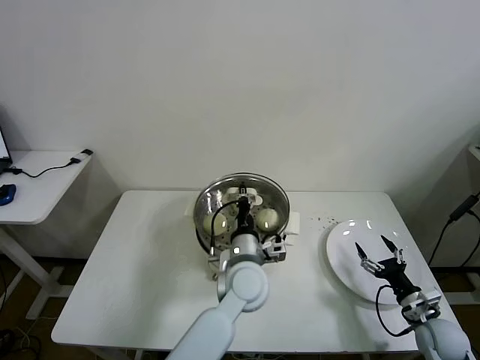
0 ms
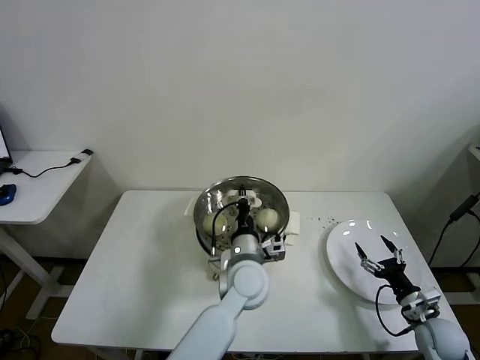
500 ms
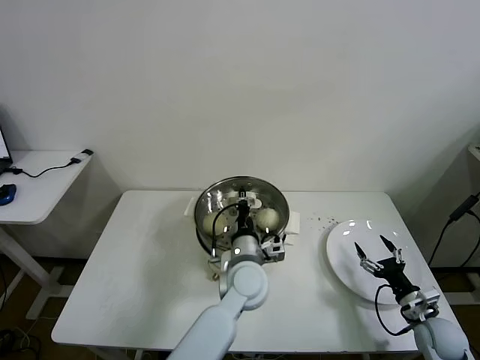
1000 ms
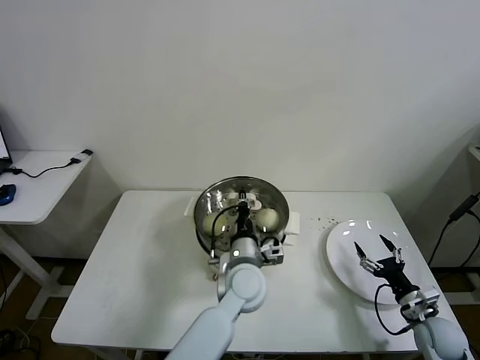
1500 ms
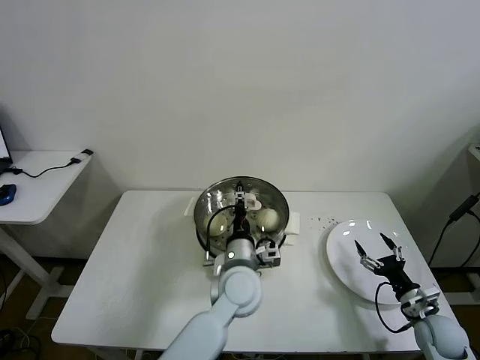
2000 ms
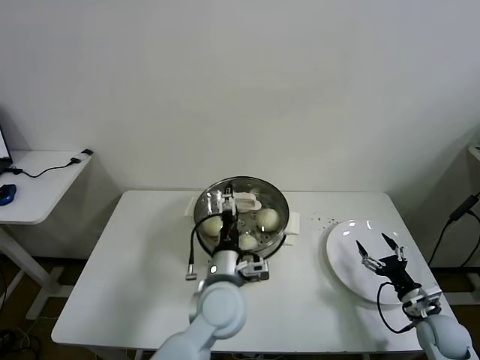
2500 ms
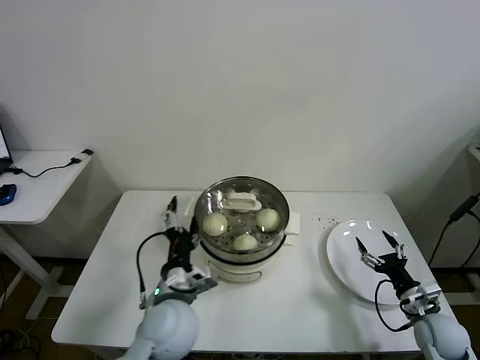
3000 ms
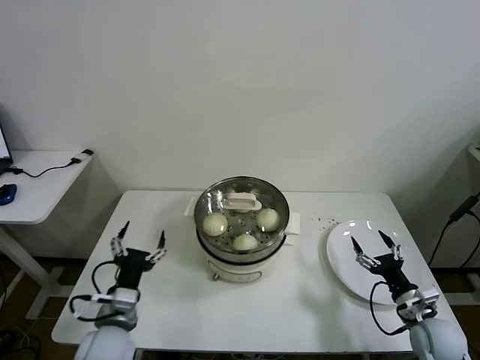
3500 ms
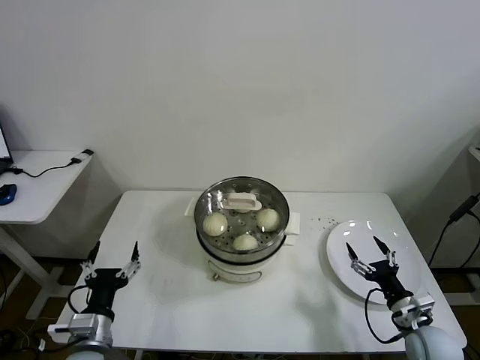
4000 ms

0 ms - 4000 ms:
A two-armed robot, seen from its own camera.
Task of the whole recording: take steamed baozi put them in steamer then cover it.
Step, 0 ms - 2000 ms: Place the pot lid on the steamer with left gripper.
0 ms - 2000 ms: The left gripper opens its fingers.
2000 ms - 4000 ms: The right gripper changes place by approximately 5 cm. The left gripper heads to the left and backward, covering roughly 30 cm, and opens its fingers.
